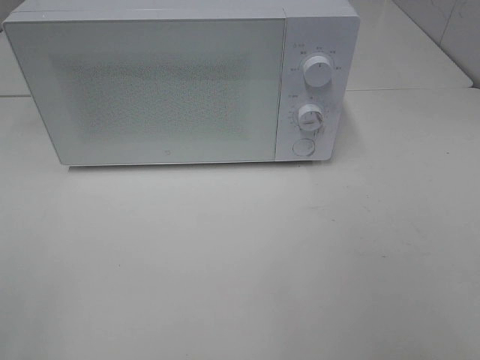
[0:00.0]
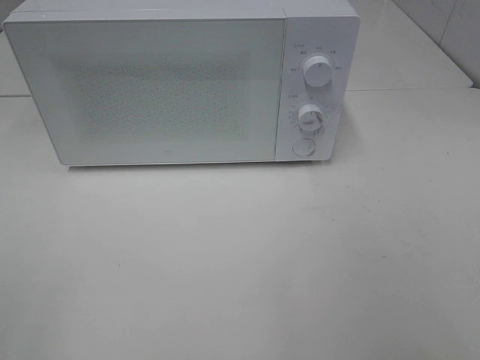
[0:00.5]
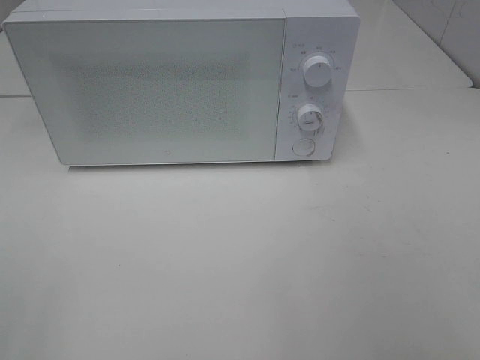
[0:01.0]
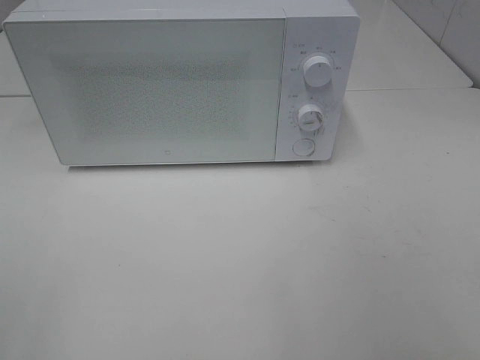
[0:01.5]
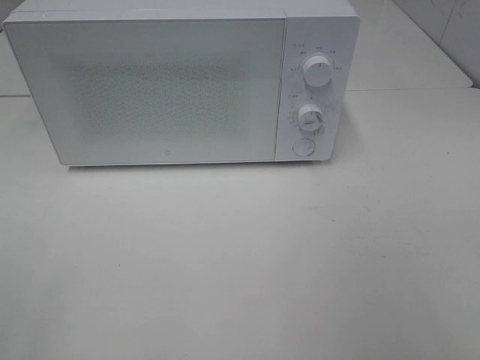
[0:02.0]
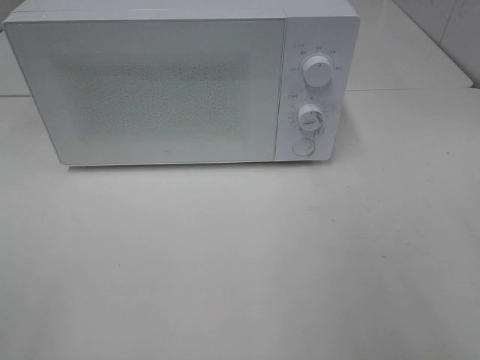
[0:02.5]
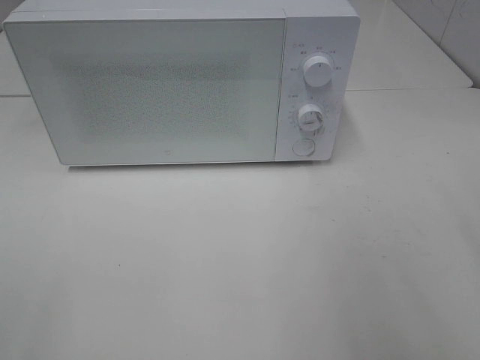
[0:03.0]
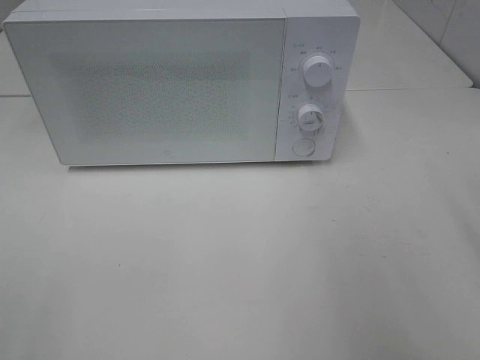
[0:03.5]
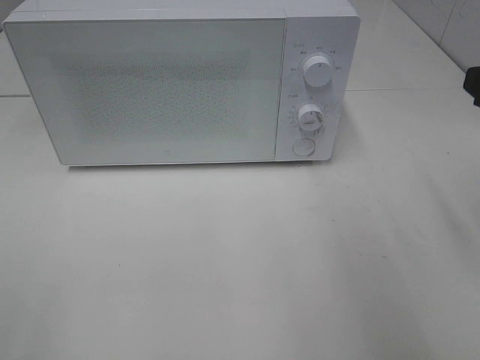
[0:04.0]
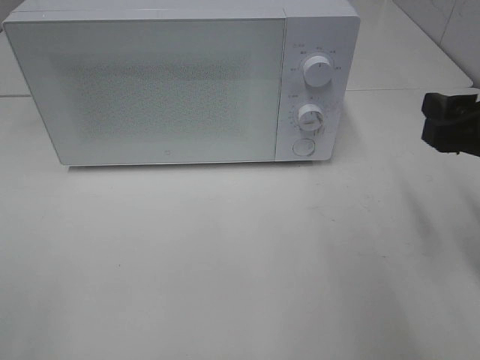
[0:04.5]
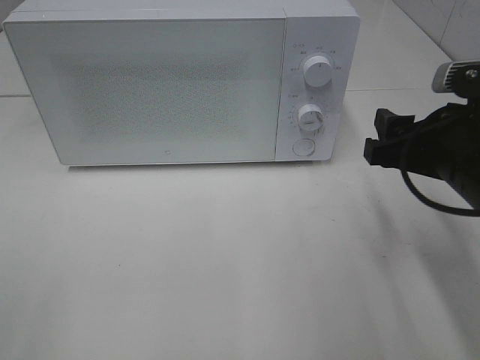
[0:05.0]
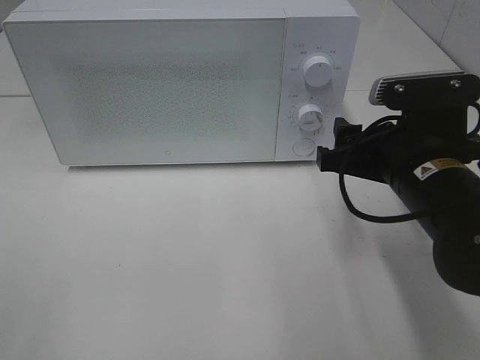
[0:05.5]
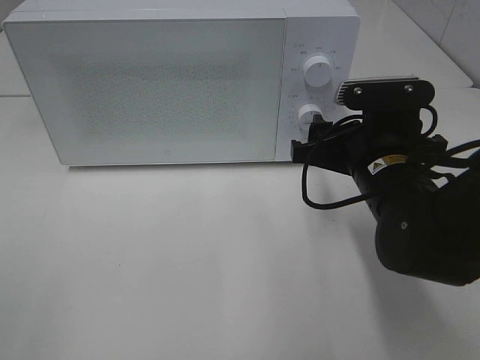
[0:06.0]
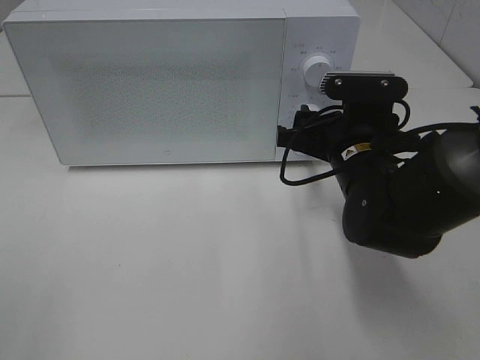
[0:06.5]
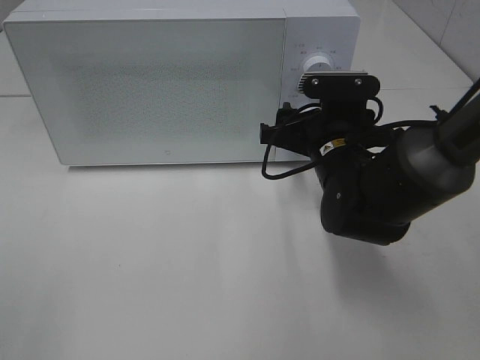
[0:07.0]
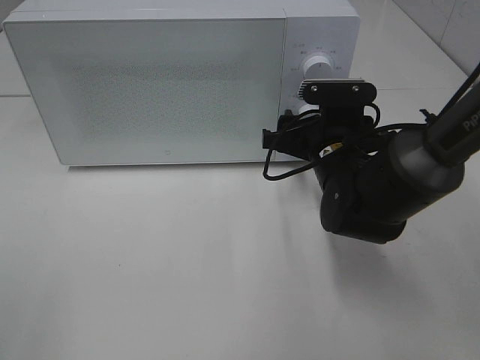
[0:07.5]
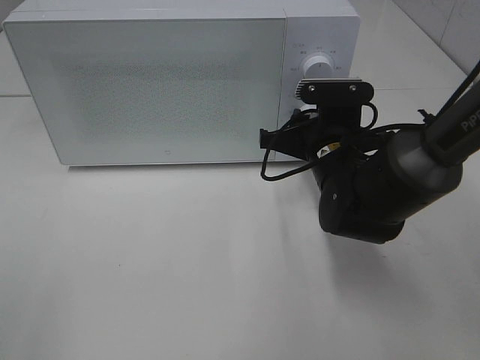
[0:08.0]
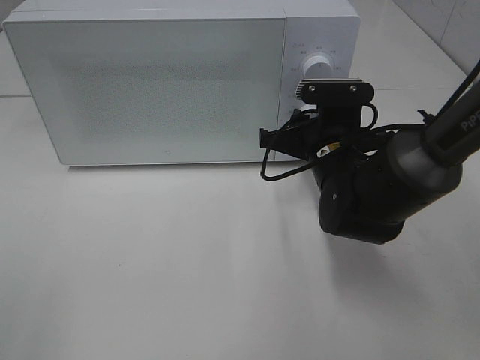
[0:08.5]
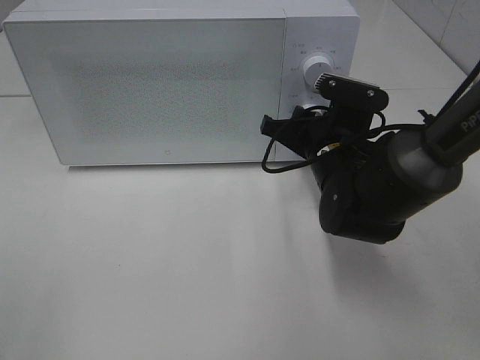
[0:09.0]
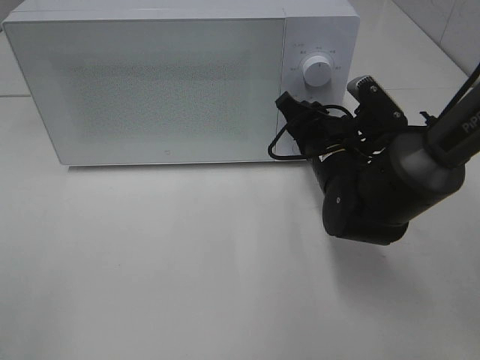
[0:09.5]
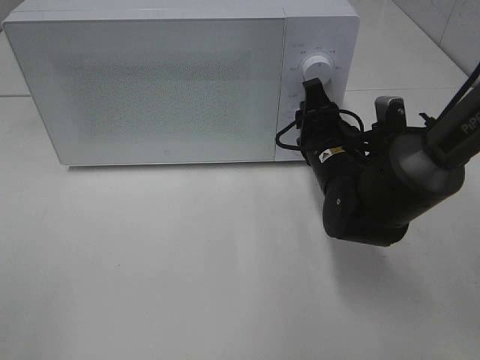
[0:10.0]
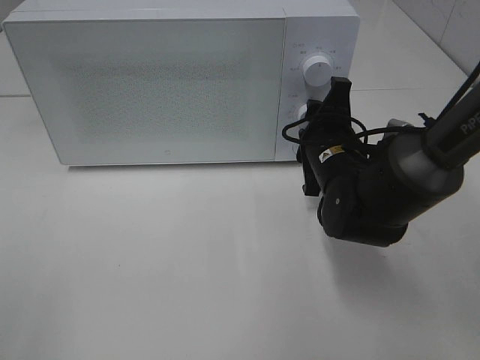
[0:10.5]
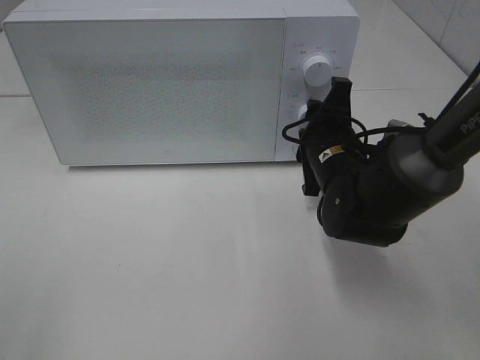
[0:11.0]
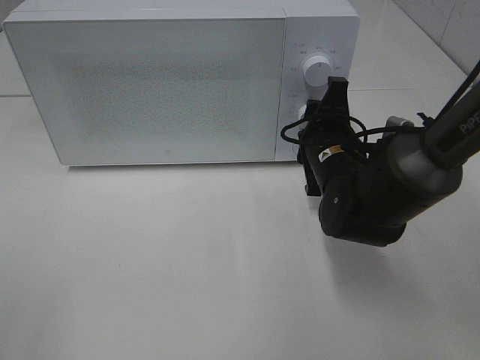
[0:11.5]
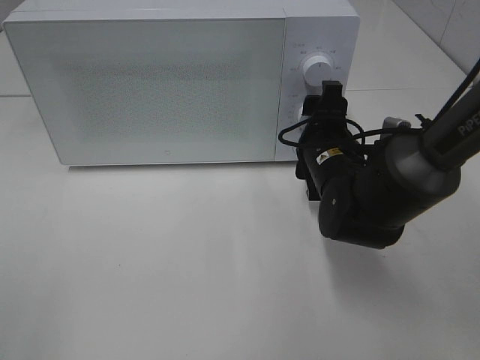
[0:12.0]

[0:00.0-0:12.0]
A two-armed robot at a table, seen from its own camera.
Task of the whole recording: Heat Sandwich.
0:04.0 to 0:06.0: The right gripper shifts some 20 cm to the left, downward and forward.
0:06.0 to 0:08.0: The right gripper travels forward by approximately 5 cm, and closes.
0:10.0 to 0:12.0: The right gripper opens its fingers.

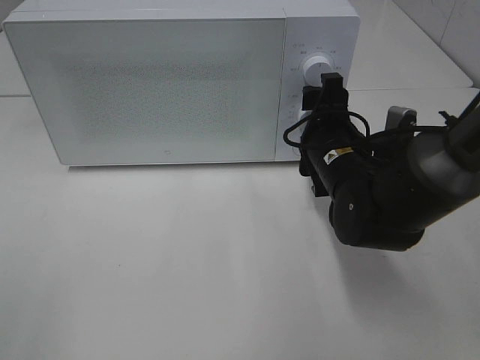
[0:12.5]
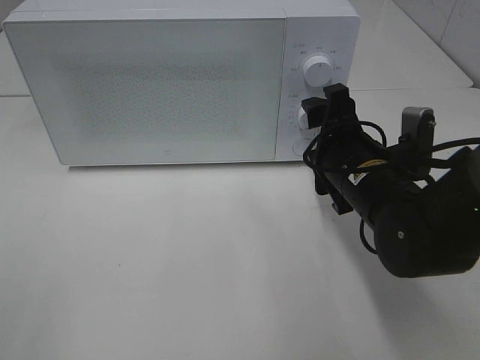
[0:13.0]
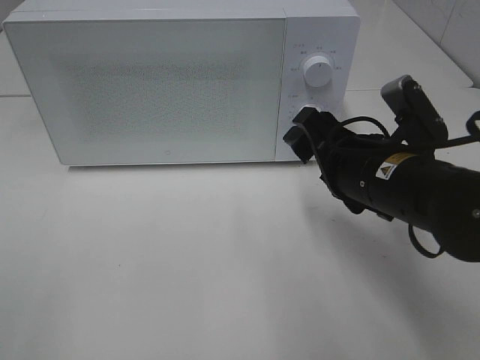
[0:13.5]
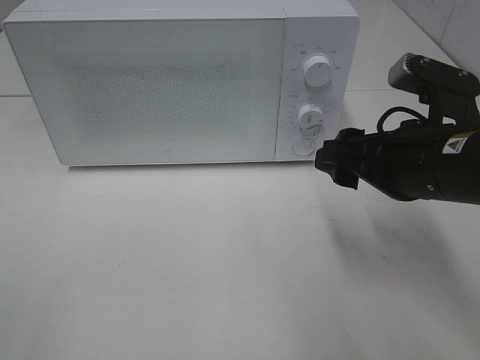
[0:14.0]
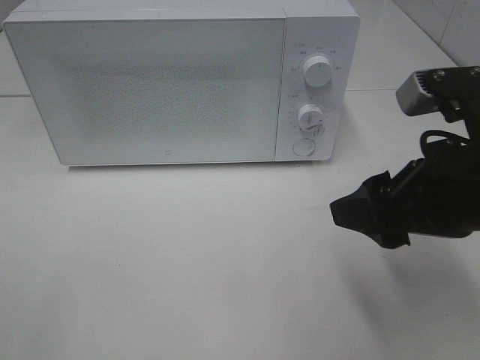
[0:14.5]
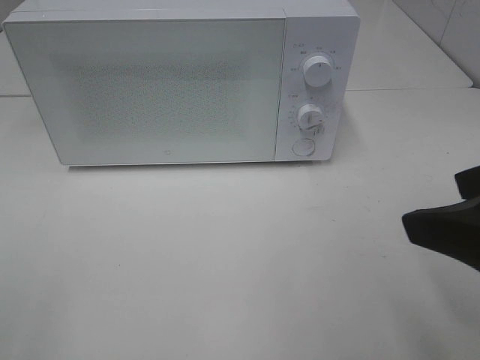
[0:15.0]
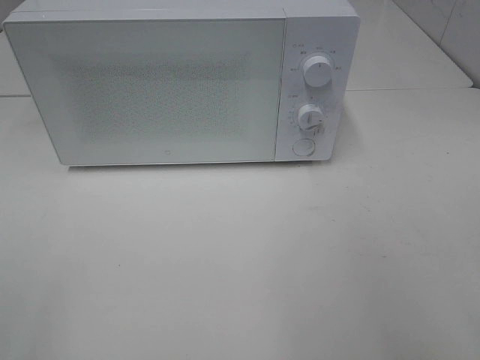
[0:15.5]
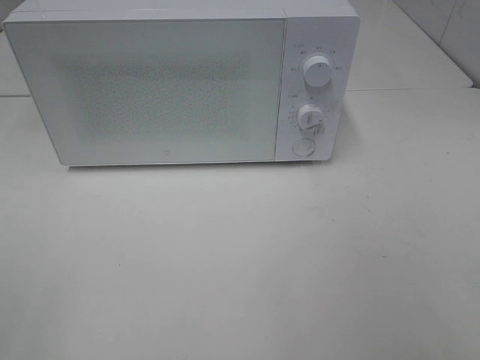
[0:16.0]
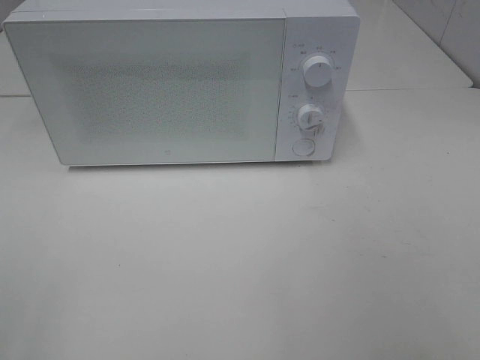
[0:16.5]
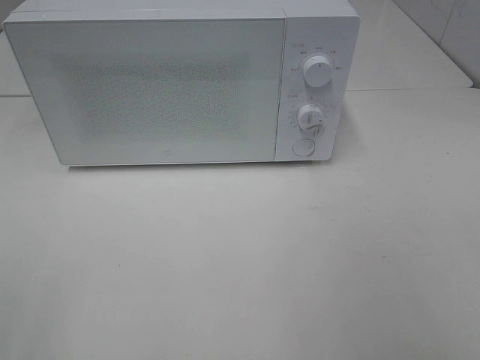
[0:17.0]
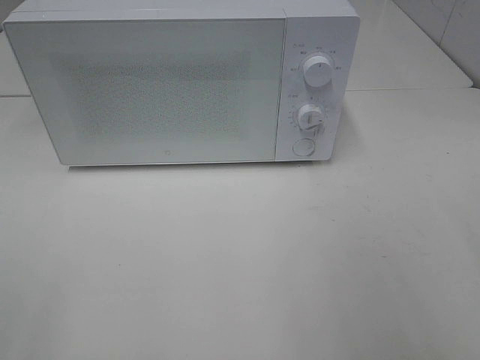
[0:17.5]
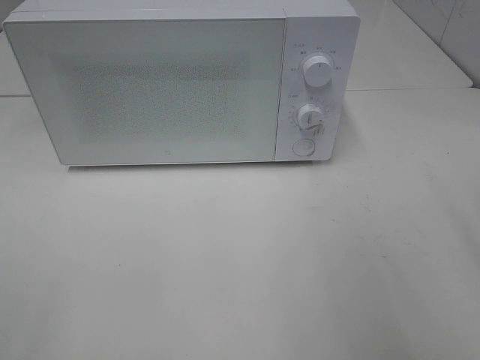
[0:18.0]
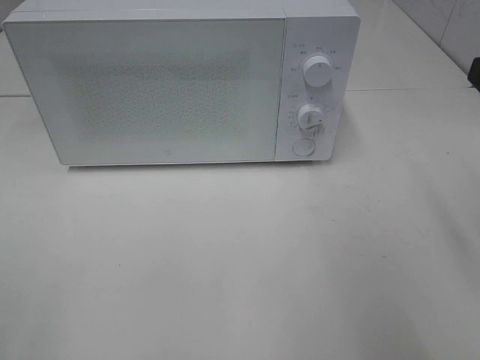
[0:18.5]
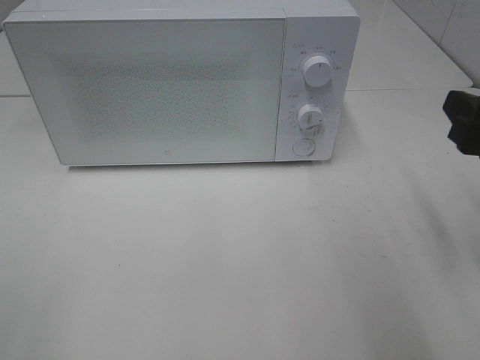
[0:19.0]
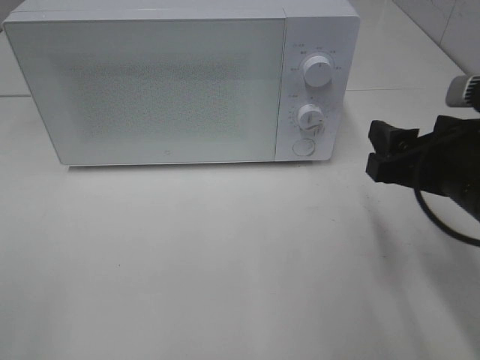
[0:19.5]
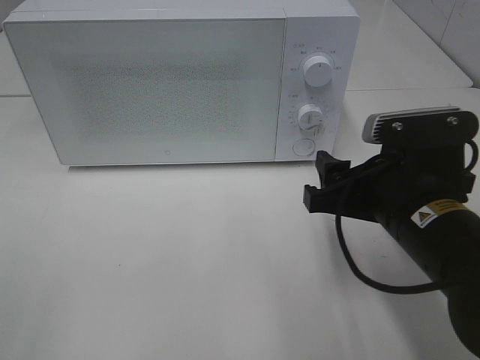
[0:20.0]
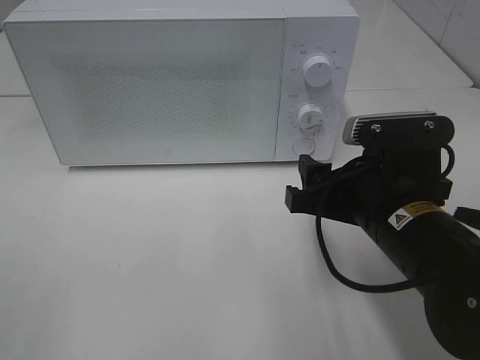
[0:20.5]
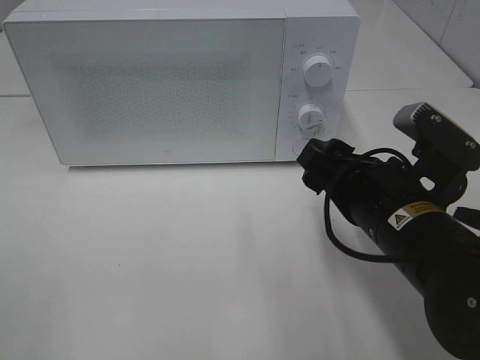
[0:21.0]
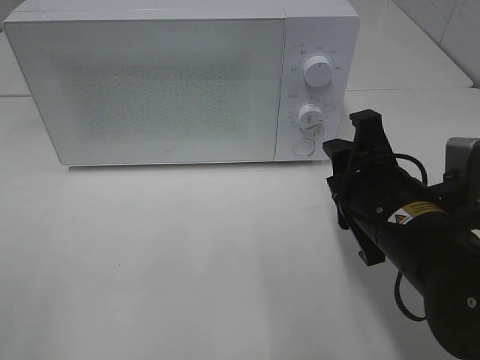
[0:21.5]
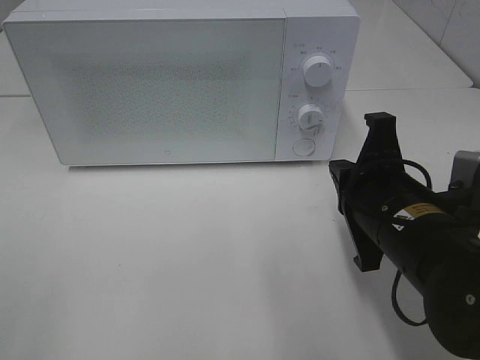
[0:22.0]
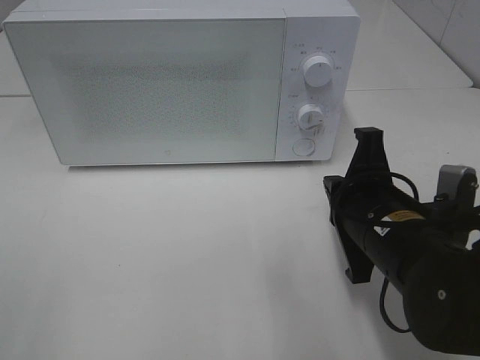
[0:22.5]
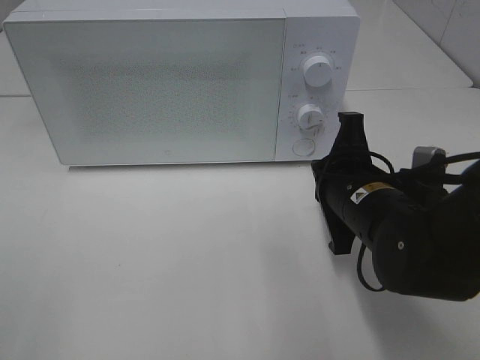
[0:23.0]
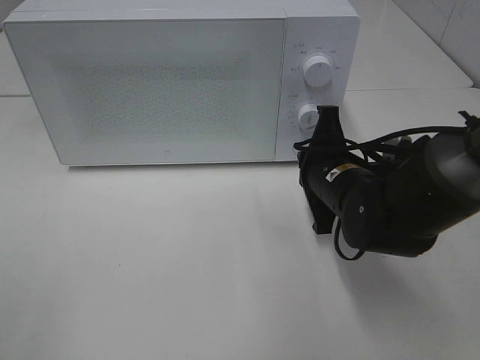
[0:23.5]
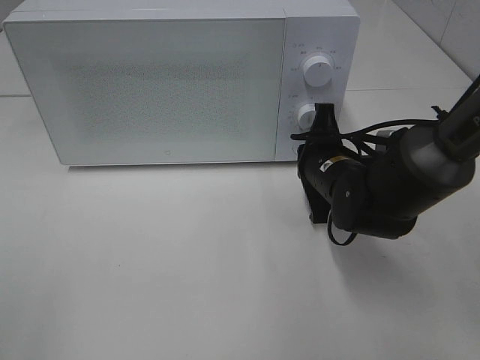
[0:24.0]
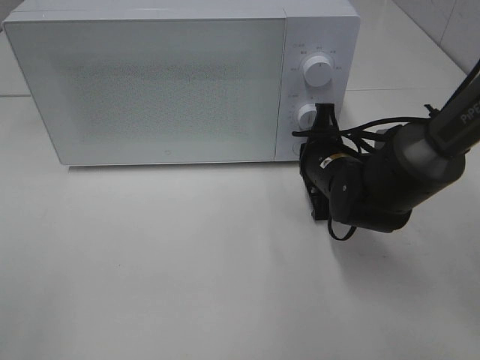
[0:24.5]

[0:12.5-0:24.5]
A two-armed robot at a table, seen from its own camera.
Task of the whole recording: Heat Sandwich.
0:12.5 to 0:14.5: The right gripper heads backward, upward and to the right, covering some 20 cm.
0:14.5 to 0:16.5: The right gripper moves backward and to the right, about 20 cm.
0:18.5 to 0:20.5: The right gripper shifts about 15 cm to the left and downward.
0:20.5 to 0:22.5: The right gripper closes up.
0:22.5 to 0:24.5: The right gripper goes about 15 cm forward.

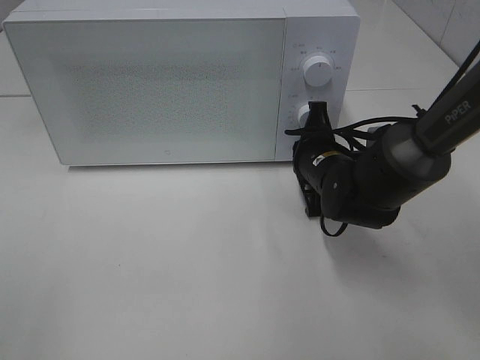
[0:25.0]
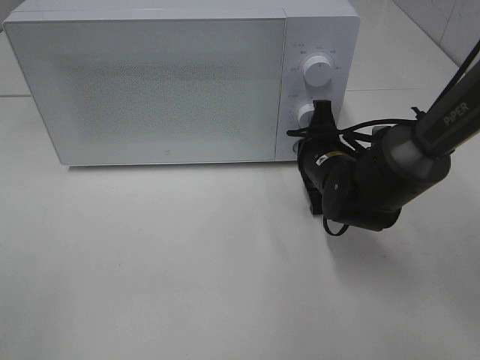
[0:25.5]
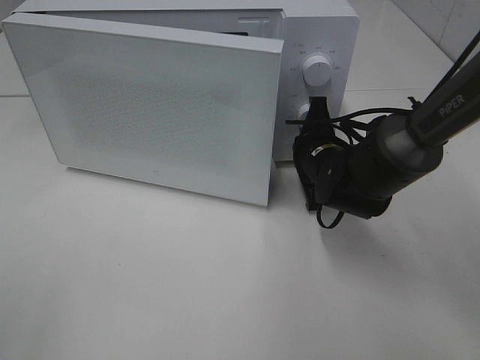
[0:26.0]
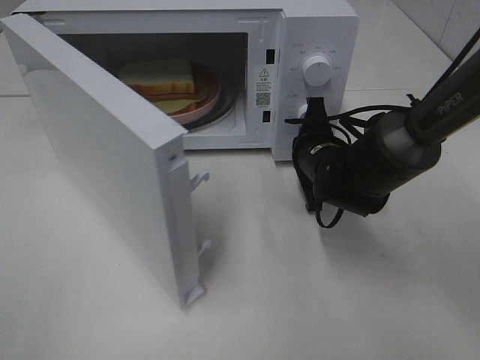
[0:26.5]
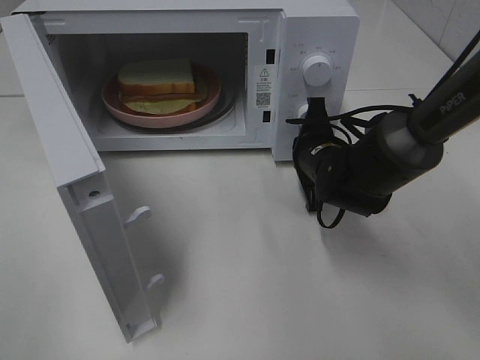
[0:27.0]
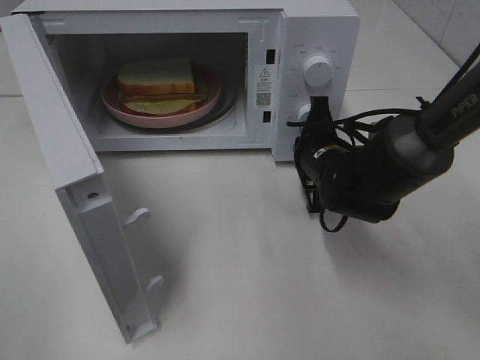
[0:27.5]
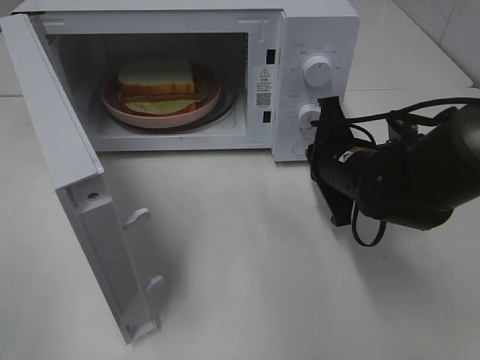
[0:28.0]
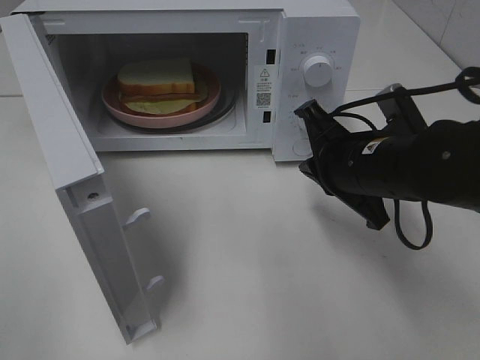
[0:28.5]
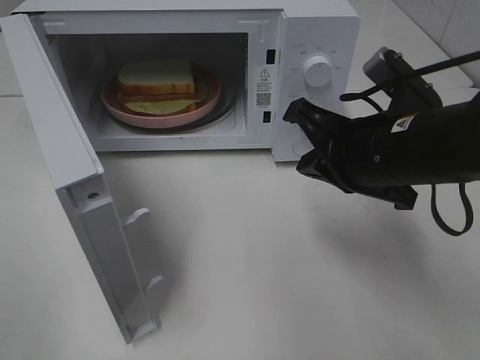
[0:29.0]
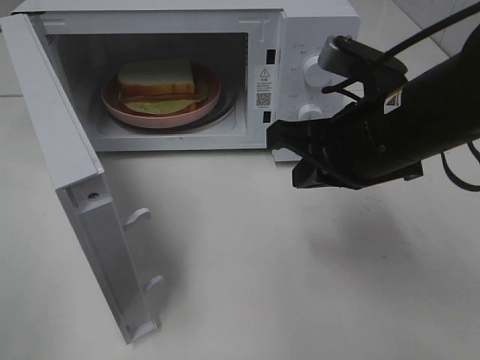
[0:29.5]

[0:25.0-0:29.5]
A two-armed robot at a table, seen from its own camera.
Task of the whole recording: Heat Sandwich.
Step, 0:25.0 to 0:28.0: Right hand: press the switch.
0:27.0 to 0:29.5: The right gripper heads upward and backward, covering roughly 20 cm.
